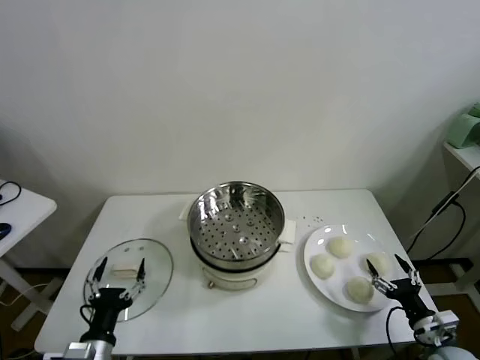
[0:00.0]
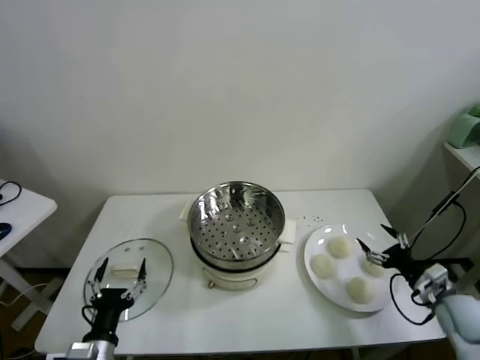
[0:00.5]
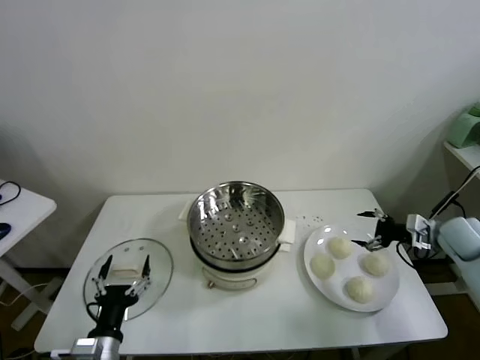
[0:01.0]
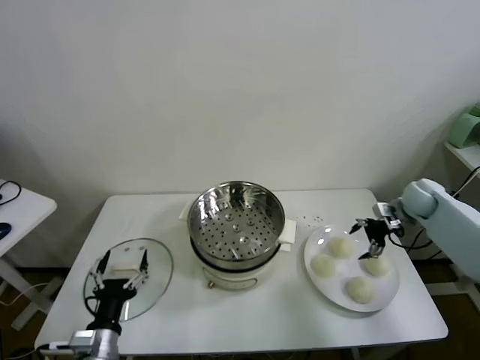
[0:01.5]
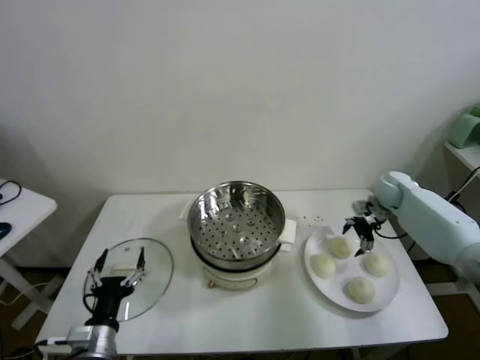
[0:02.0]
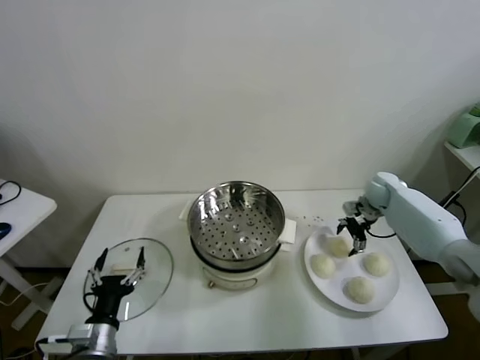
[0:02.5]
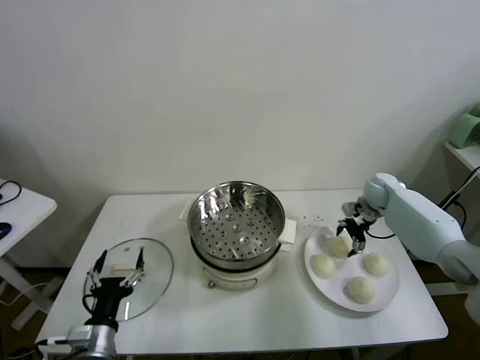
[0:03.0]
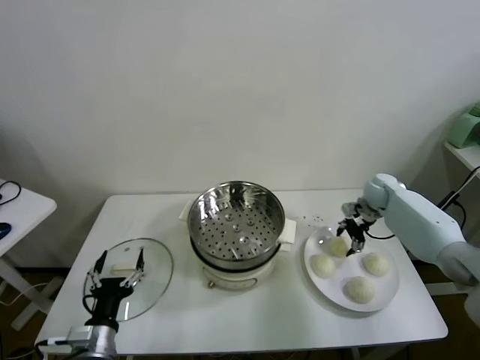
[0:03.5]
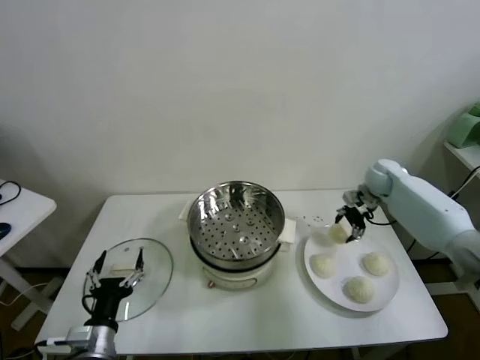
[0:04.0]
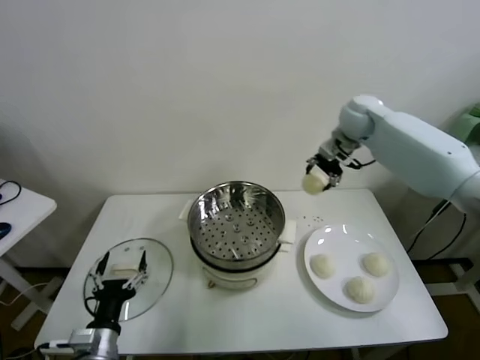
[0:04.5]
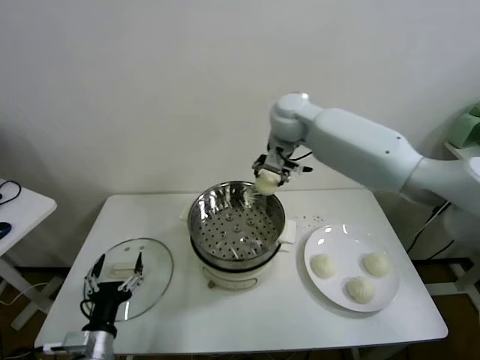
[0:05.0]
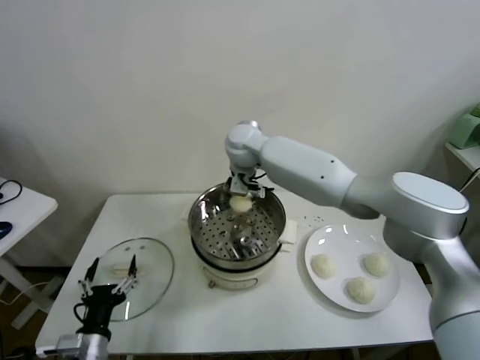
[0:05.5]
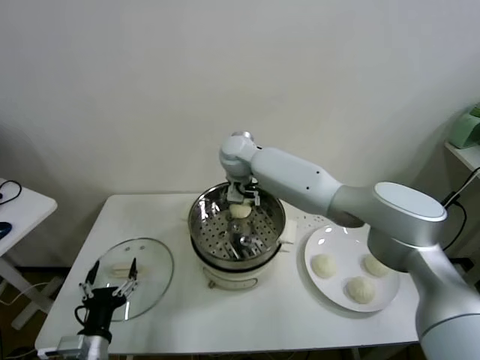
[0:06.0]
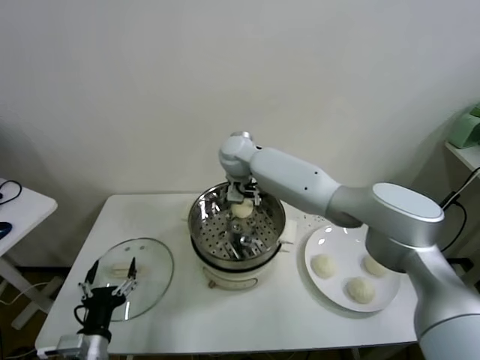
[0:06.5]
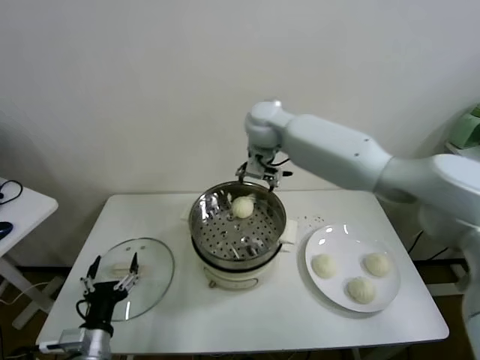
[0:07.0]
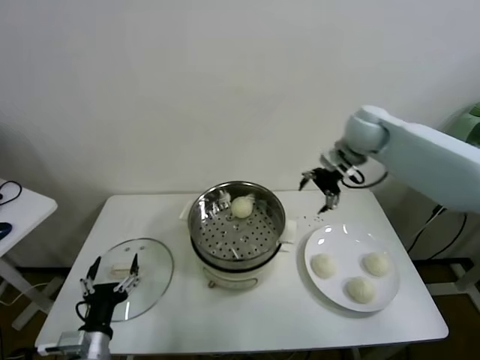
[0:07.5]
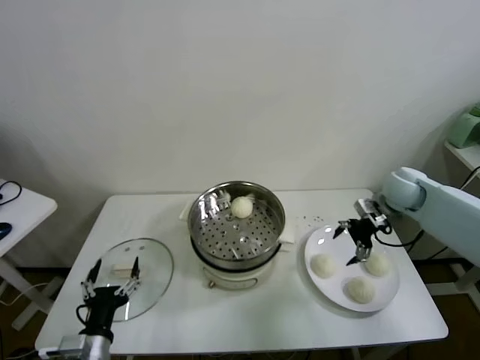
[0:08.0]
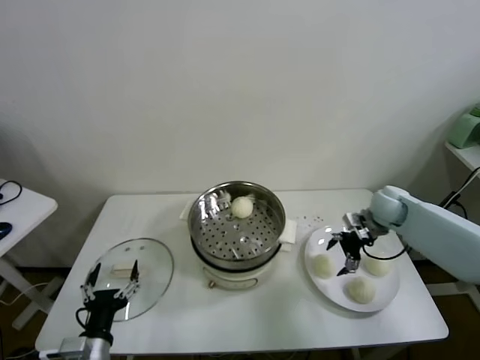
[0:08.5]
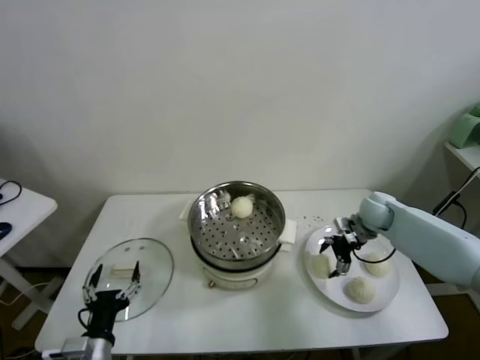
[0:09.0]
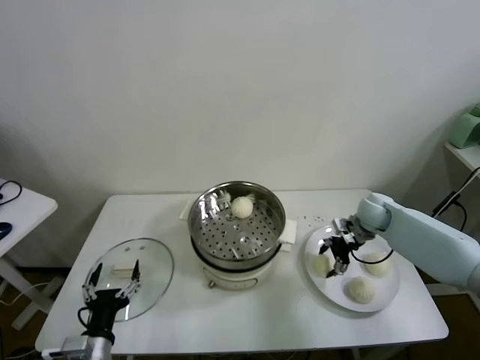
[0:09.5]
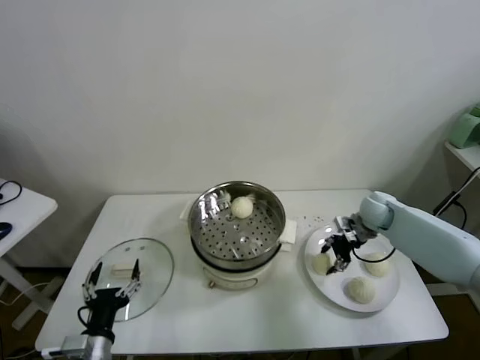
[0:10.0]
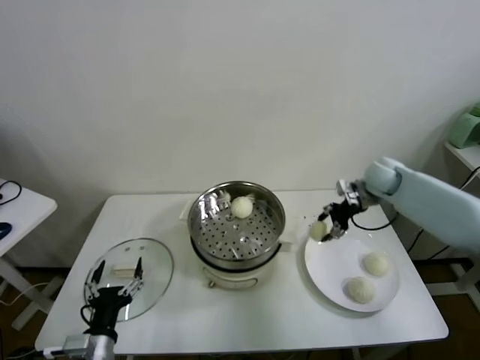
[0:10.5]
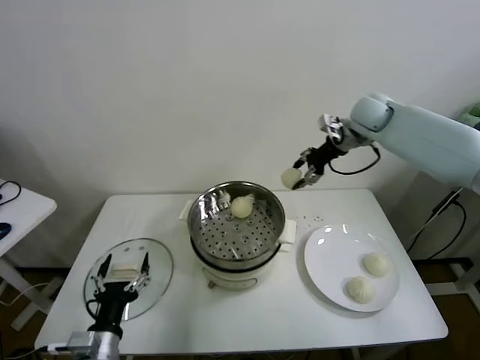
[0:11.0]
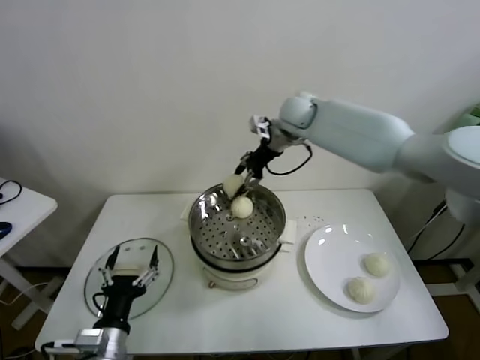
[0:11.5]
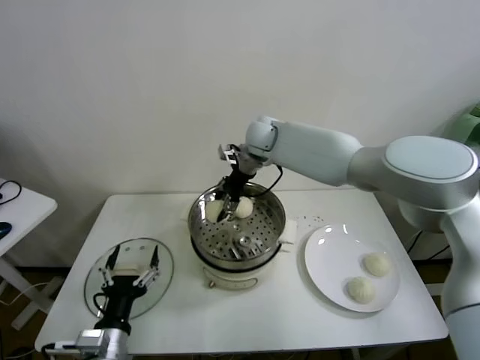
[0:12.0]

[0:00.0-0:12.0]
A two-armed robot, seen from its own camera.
Task of the whole recording: take steamed baozi put them in steamer.
Step, 0:00.0 to 0:03.0: Grasp the baozi in the plate with right gripper.
Step, 0:03.5 to 0:06.5: Place the baozi on the steamer with right gripper.
Step, 0:07.0 to 0:09.0: Grasp the baozi in the plate with right gripper.
0:02.0 to 0:04.0: The right gripper is displaced upward by some 5 cm, and closes its fingers.
0:04.0 to 0:06.0: The right gripper is displaced to the left by about 40 cm.
0:06.0 to 0:08.0: The right gripper goes roughly 40 cm to the right, and opens up.
0:08.0 to 0:10.0: The right gripper shifts some 10 cm downward, and closes up.
0:10.0 to 0:12.0: The right gripper goes about 35 cm to the left and upward; the left gripper moves some 5 cm.

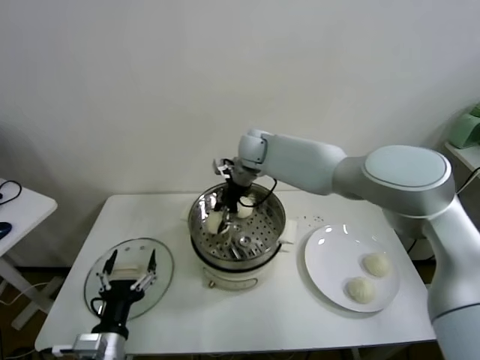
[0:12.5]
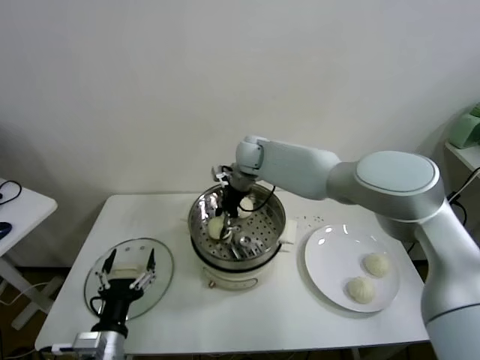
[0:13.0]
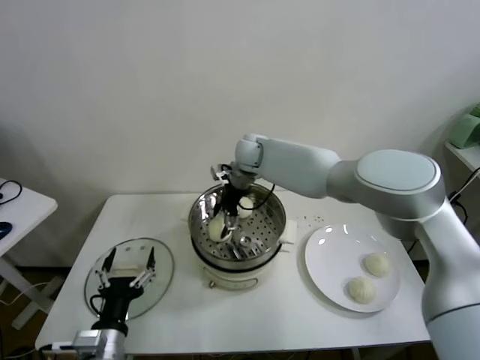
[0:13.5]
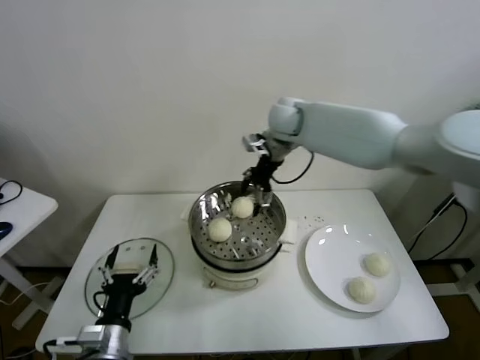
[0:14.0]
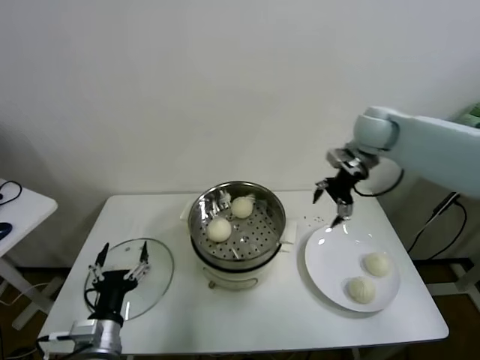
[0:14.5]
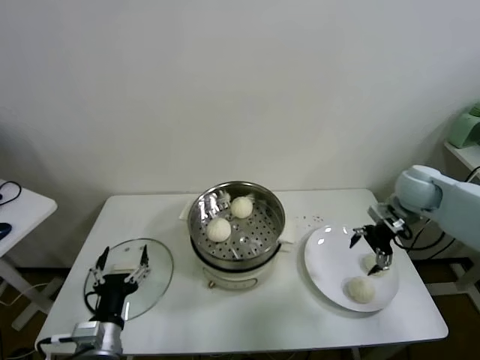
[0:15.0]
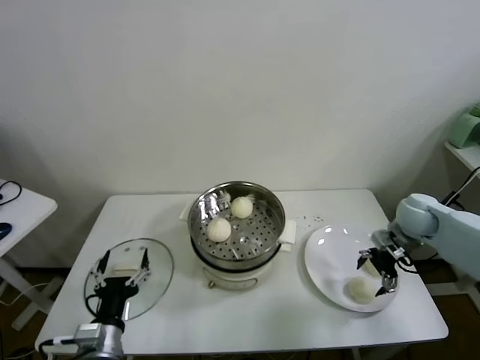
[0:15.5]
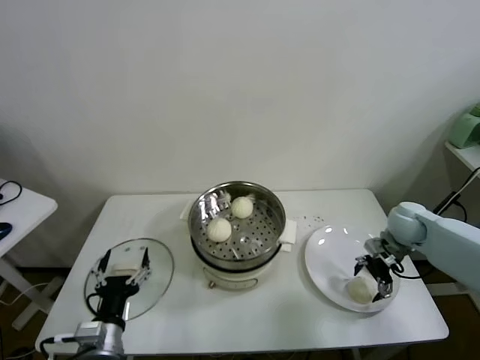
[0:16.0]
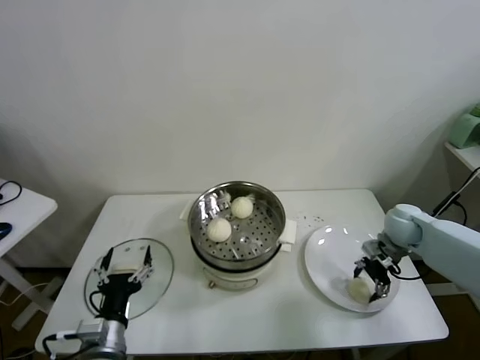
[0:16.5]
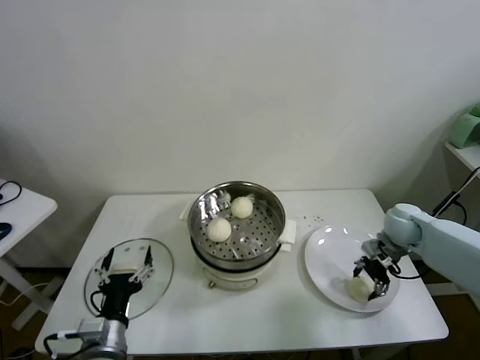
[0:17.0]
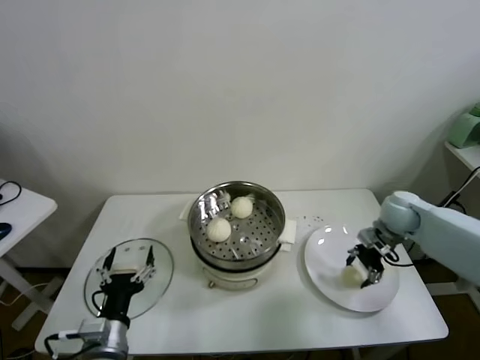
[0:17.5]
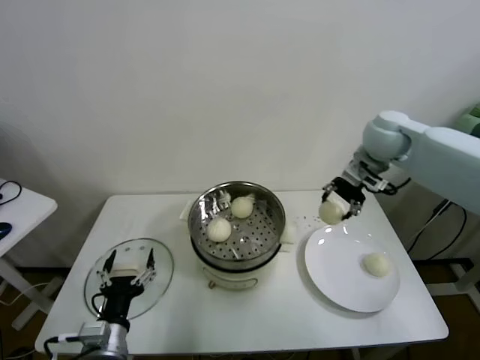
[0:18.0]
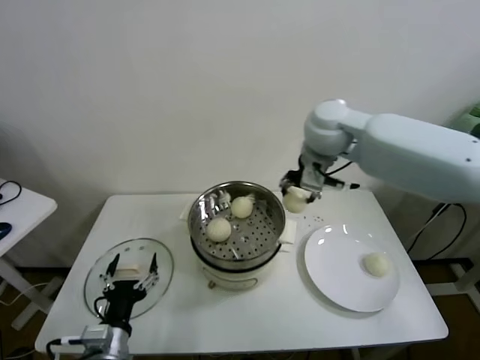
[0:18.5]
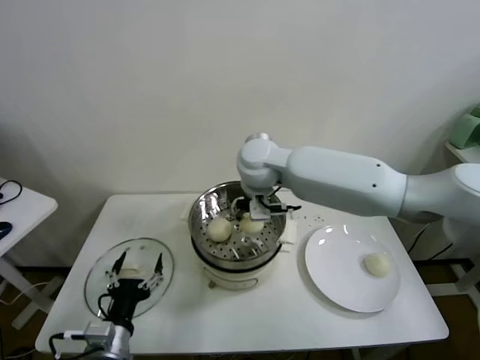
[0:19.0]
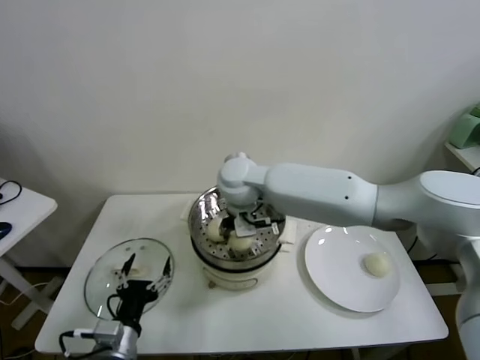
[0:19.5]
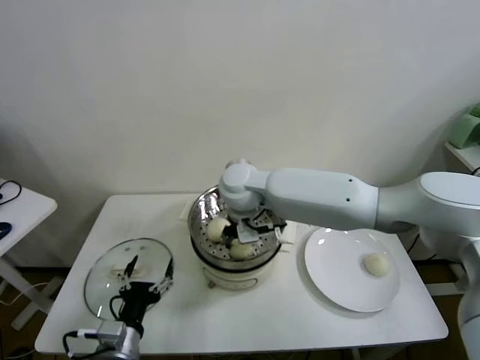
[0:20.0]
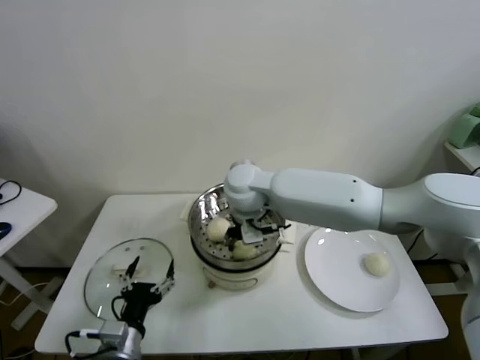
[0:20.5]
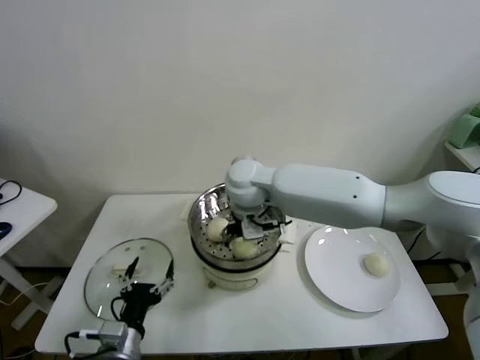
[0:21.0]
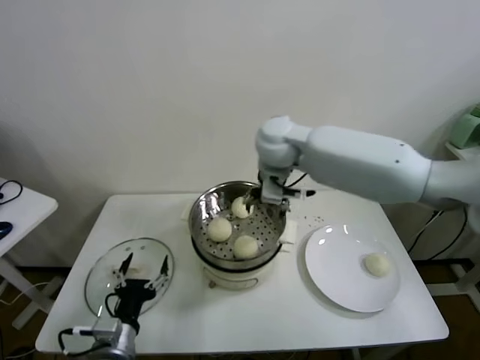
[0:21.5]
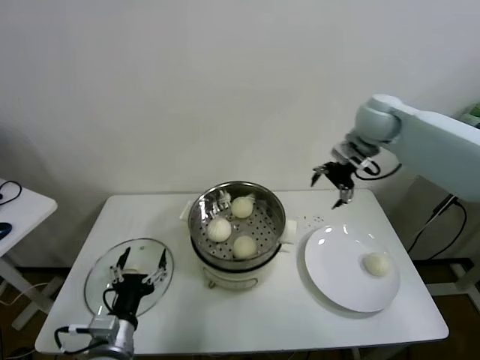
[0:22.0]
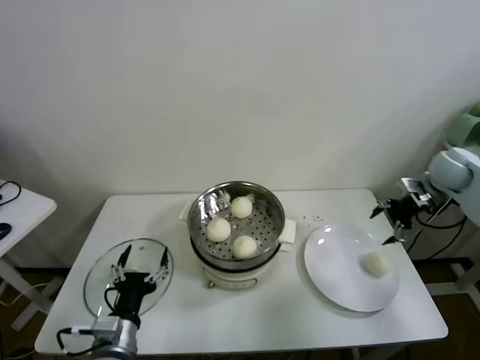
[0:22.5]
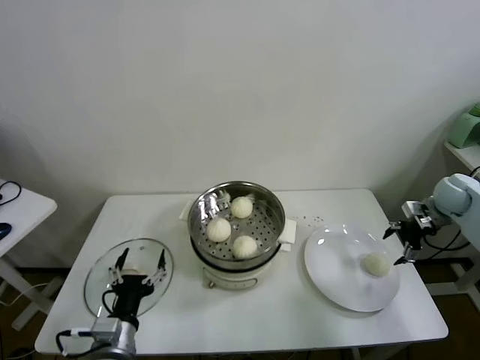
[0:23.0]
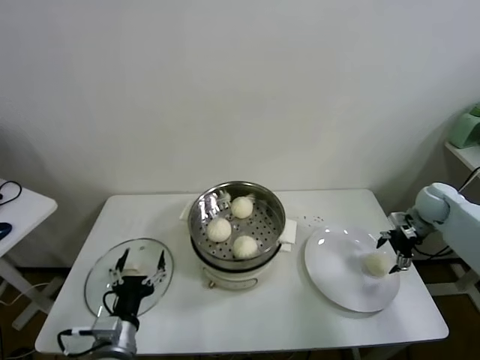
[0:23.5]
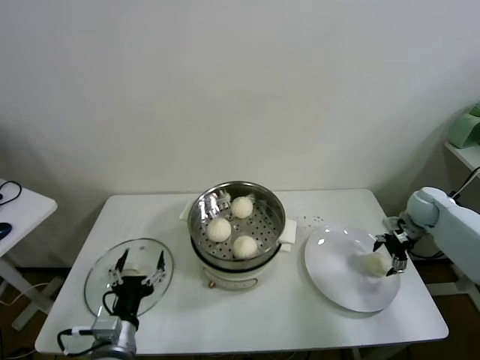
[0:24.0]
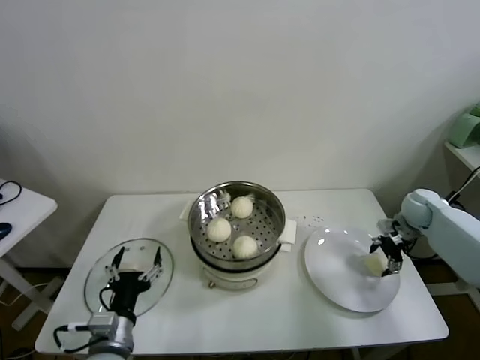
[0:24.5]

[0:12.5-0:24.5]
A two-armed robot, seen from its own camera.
Task of the whole recording: take steamed baozi put them in steamer.
Step, 0:13.5 to 0:16.0: Grasp the baozi in the plate with right gripper.
Step, 0:16.5 to 0:21.0: Place the baozi on the steamer with right gripper.
Step, 0:21.5 to 0:24.0: Grasp the baozi in the plate with right gripper.
0:12.5 to 0:14.5: The right gripper heads to the right, covering roughly 25 cm, and opens its fingers.
0:14.5 to 0:16.5: The right gripper moves downward and to the right, some 25 cm, and closes up.
0:16.5 to 0:18.5: The right gripper moves upward and to the left, approximately 35 cm.
0:18.5 to 0:20.5: The right gripper goes about 20 cm to the left and downward.
0:20.5 to 0:22.5: The right gripper shifts roughly 50 cm to the right, and opens its fingers.
0:22.5 to 0:24.5: The right gripper moves downward, about 15 cm.

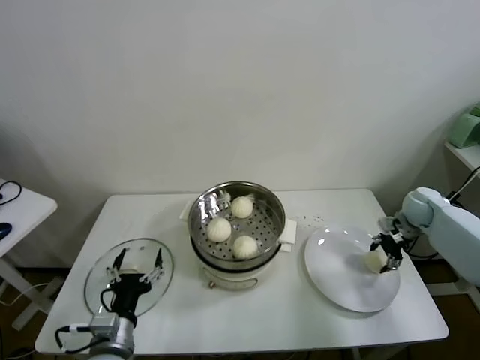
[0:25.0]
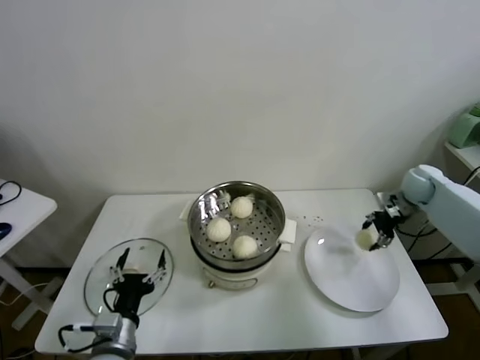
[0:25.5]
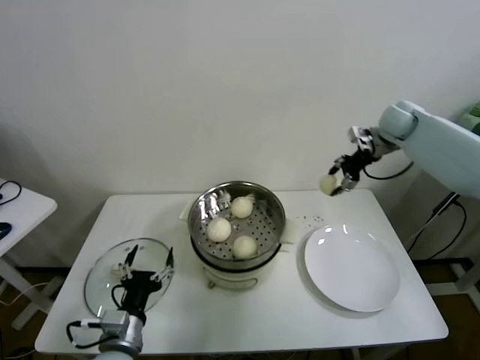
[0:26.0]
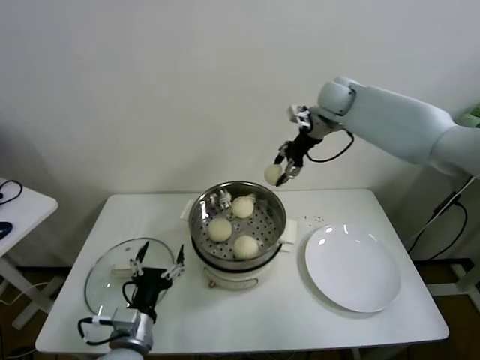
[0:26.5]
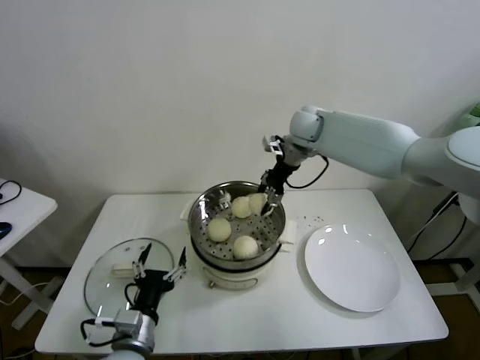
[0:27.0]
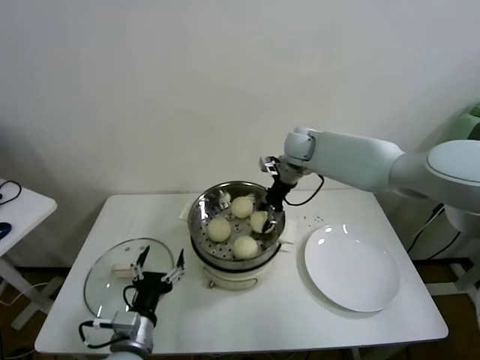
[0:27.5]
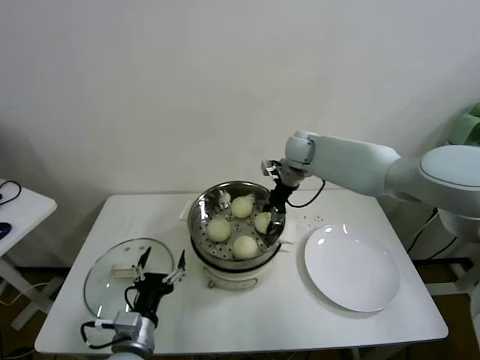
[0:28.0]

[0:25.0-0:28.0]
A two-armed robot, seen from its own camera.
Task of the whole recording: take steamed baozi put them in steamer.
0:25.0 to 0:26.5: The right gripper travels upward, to the left and forward by roughly 35 cm.
0:26.5 to 0:28.0: The right gripper heads downward and to the left, covering some 15 cm.
